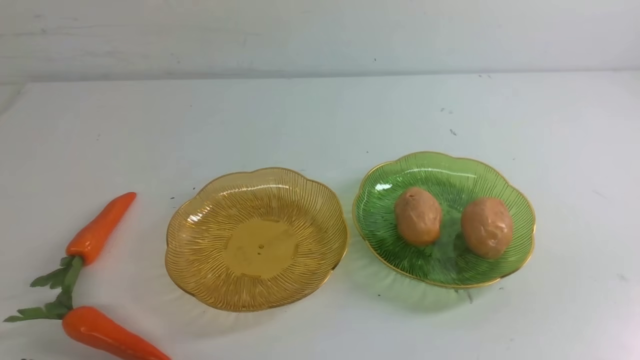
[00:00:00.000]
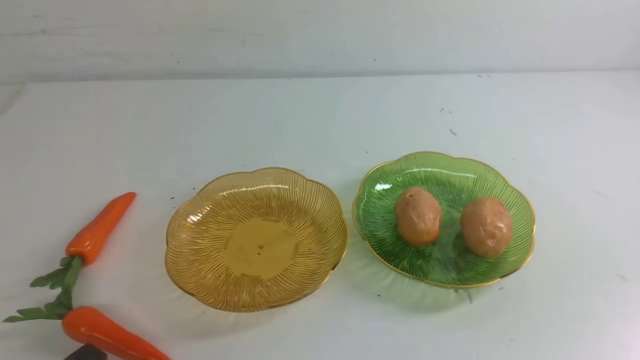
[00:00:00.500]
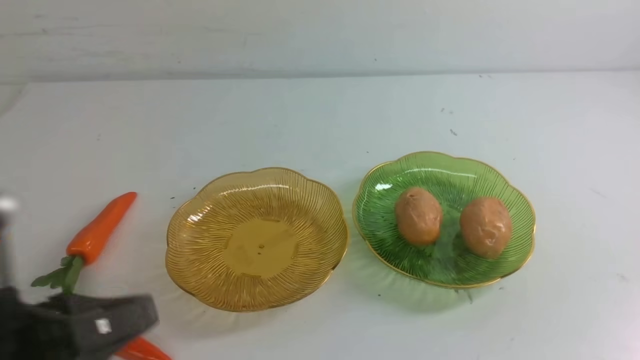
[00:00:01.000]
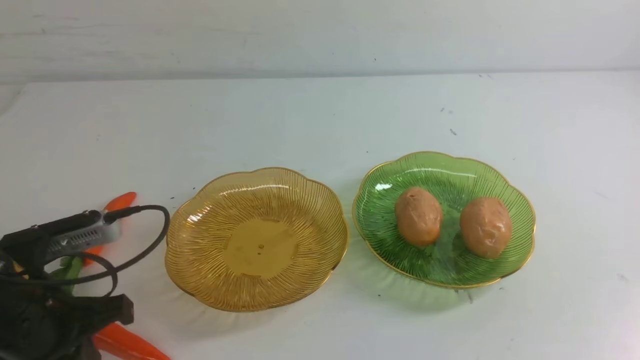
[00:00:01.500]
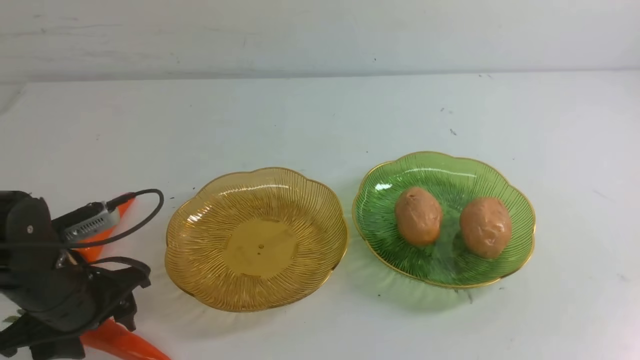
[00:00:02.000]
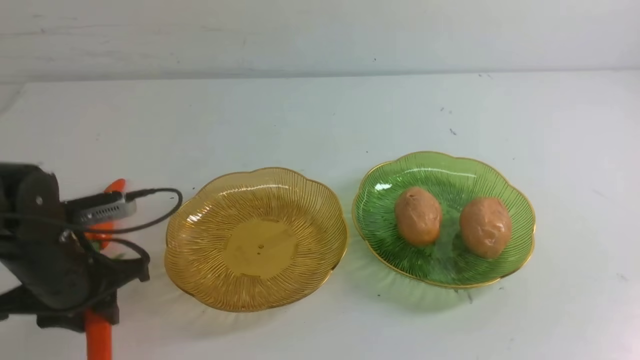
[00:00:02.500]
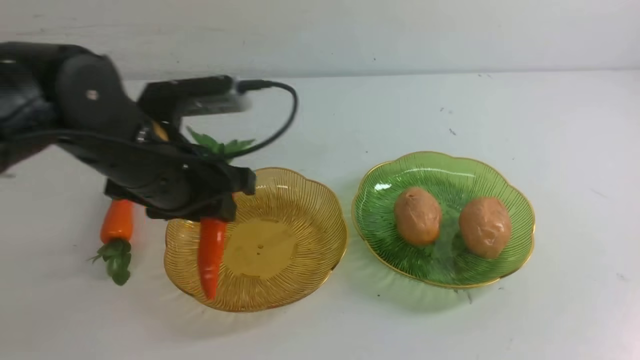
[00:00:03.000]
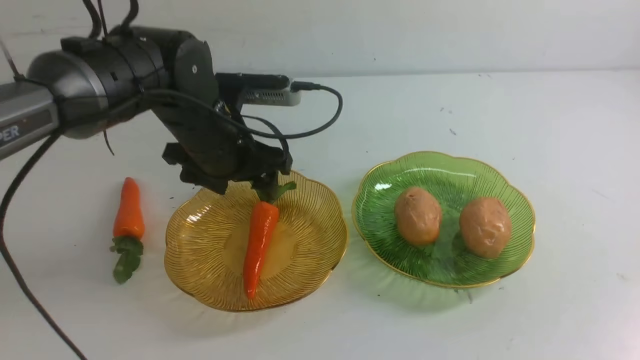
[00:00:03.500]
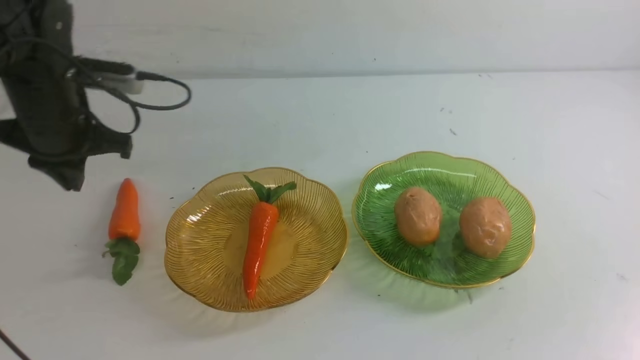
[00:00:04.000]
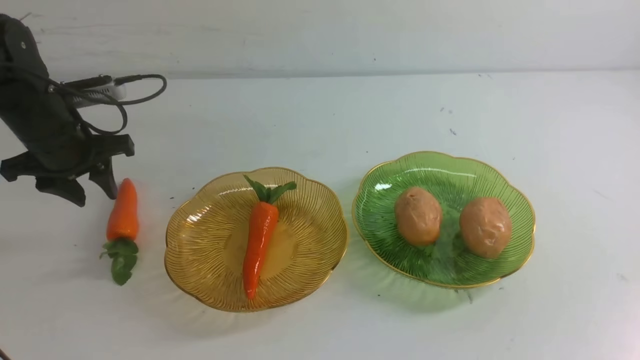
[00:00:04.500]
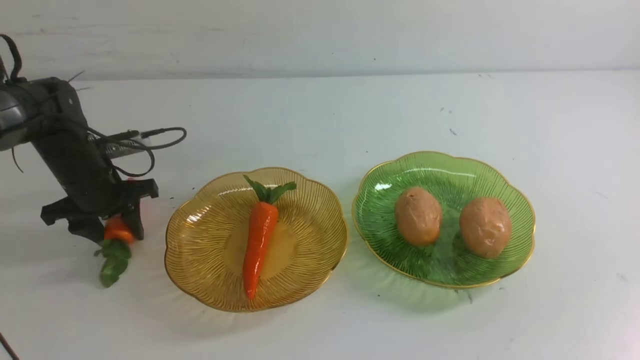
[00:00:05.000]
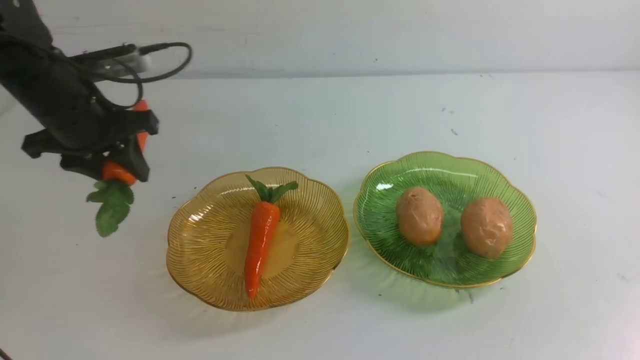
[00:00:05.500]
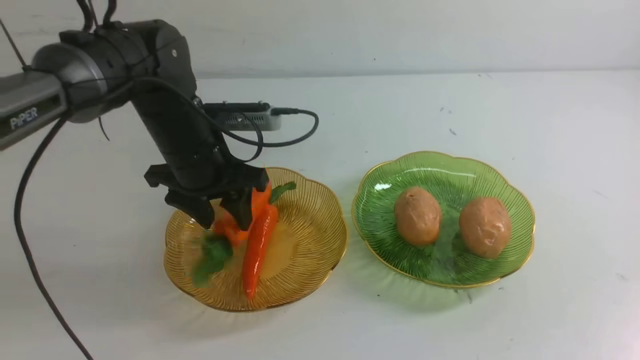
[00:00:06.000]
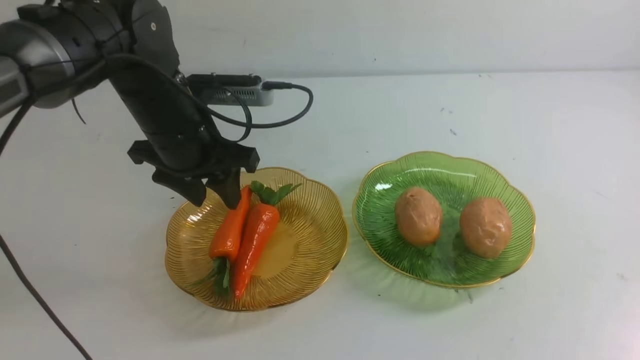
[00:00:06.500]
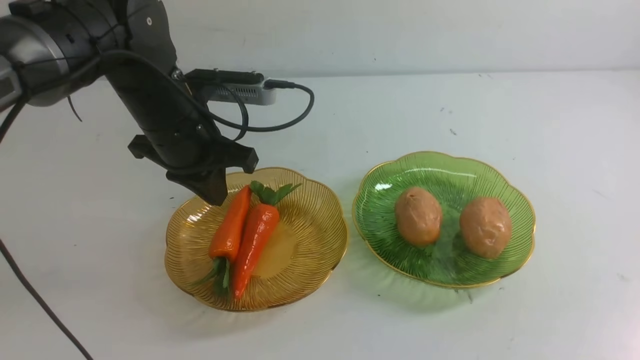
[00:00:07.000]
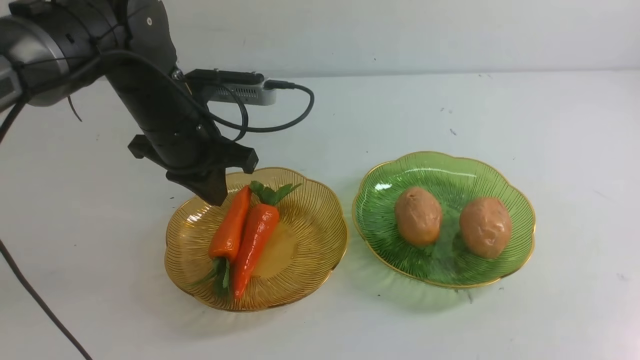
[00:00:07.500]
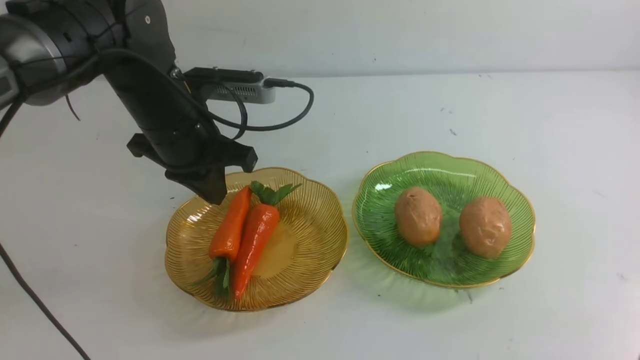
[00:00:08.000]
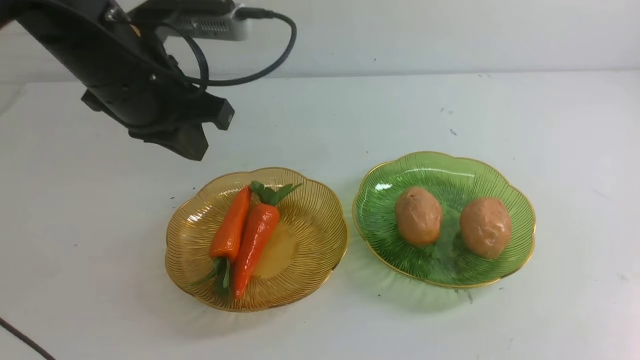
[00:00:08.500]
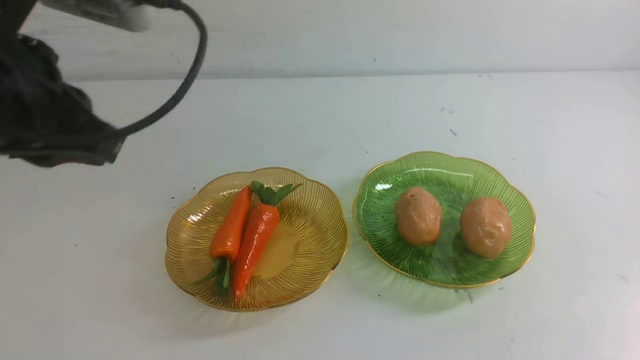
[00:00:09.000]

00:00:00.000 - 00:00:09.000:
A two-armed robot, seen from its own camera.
Step, 00:00:00.000 - 00:00:06.000: use the left arm to grab a carrot and put it into the left plate.
00:00:00.000 - 00:00:02.000: The left gripper goes approximately 20 cm forward, and opens its fingers.
00:00:02.000 - 00:00:04.500: The left gripper goes roughly 15 cm forward and upward, moves about 10 cm to the right and comes back, and closes, then reopens.
00:00:04.500 - 00:00:07.000: The left gripper is displaced to the right by roughly 15 cm, and closes up.
00:00:07.000 - 00:00:09.000: The left gripper travels backward and upward by roughly 20 cm, while the right gripper is displaced downward by roughly 10 cm.

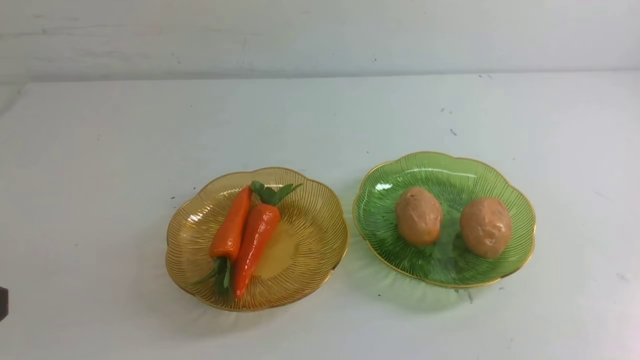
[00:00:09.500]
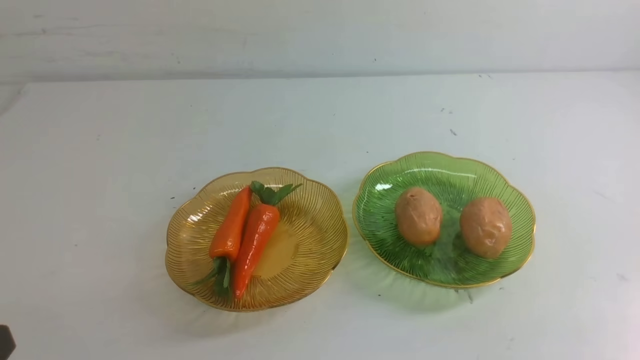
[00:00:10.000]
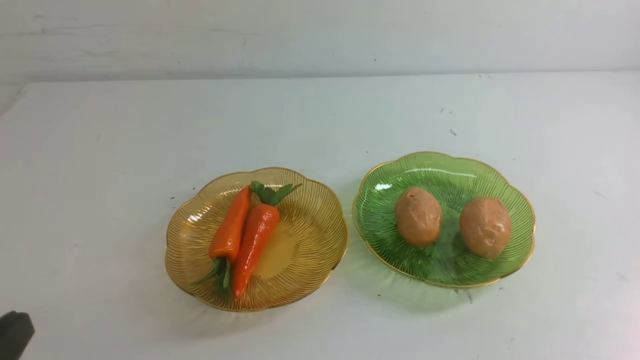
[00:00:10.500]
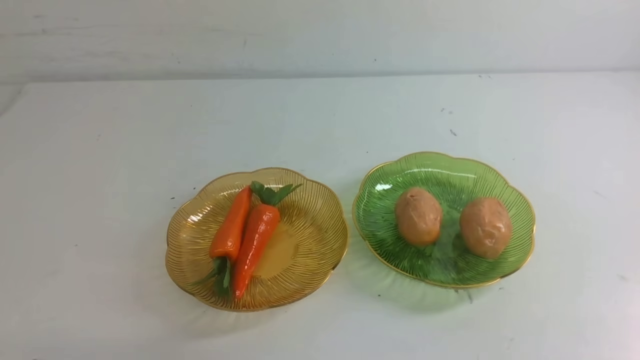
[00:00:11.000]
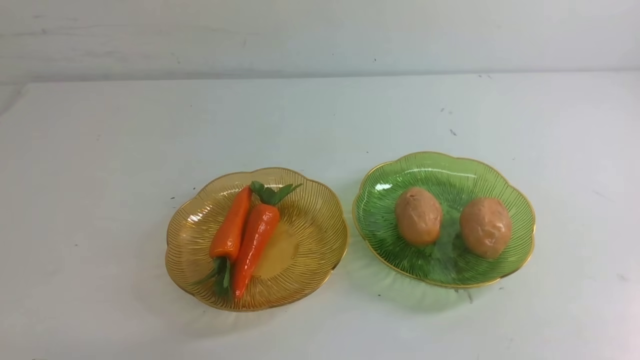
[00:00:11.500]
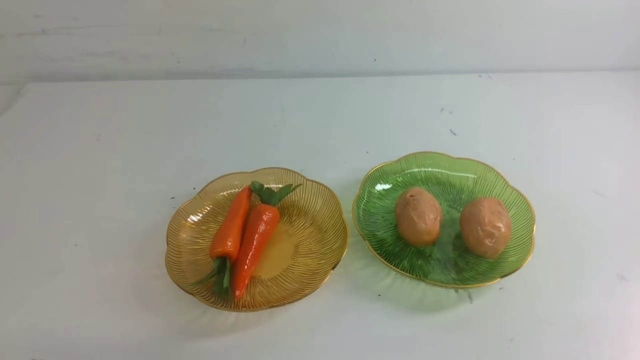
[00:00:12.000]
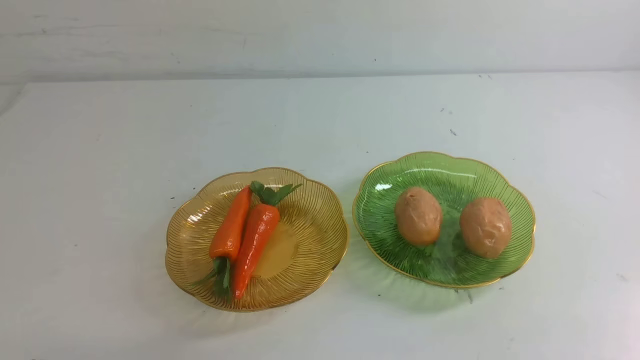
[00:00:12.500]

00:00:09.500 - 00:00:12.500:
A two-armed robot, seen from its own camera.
00:00:11.000 - 00:00:12.500: Both grippers stay put.
